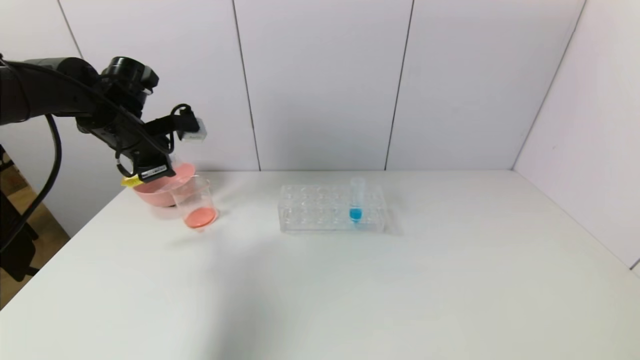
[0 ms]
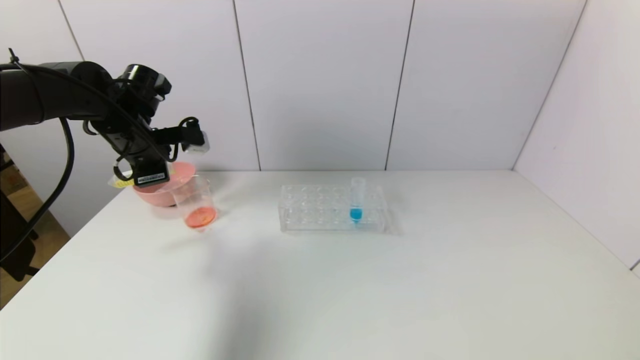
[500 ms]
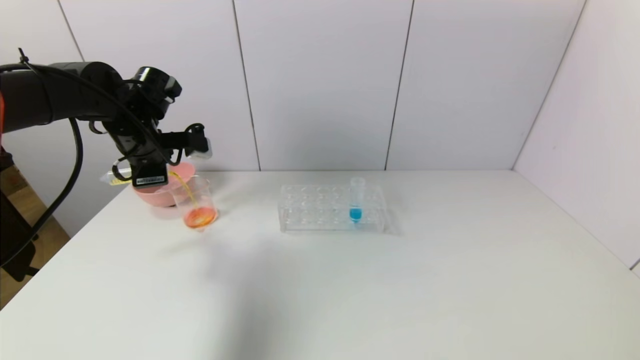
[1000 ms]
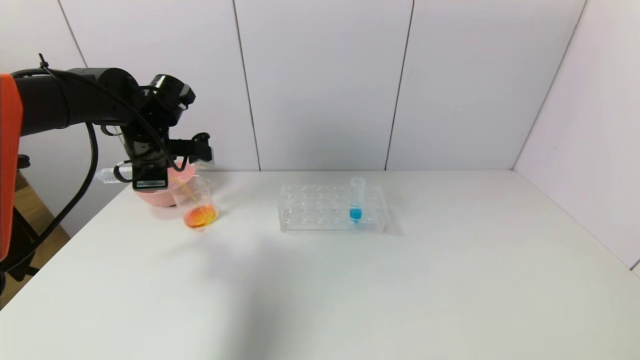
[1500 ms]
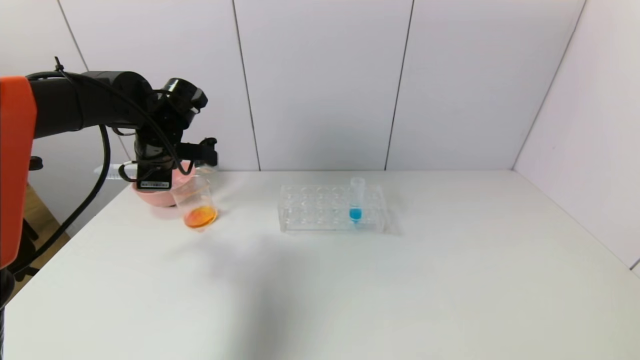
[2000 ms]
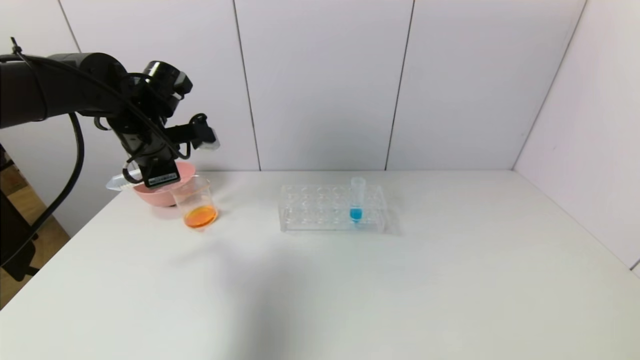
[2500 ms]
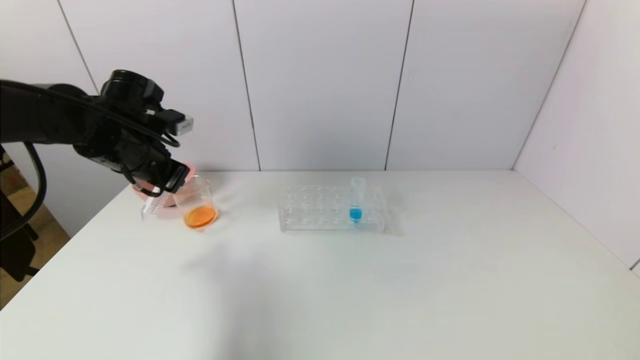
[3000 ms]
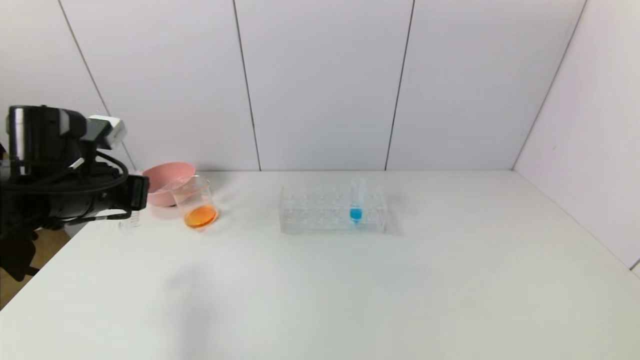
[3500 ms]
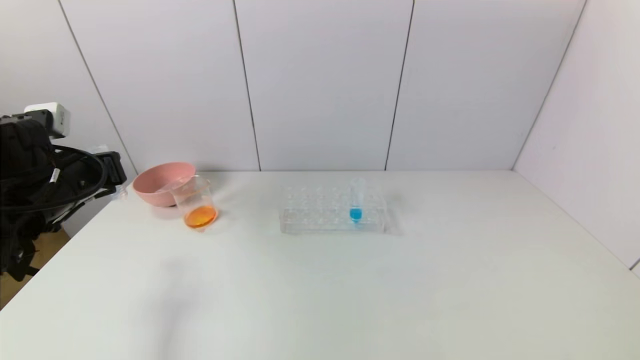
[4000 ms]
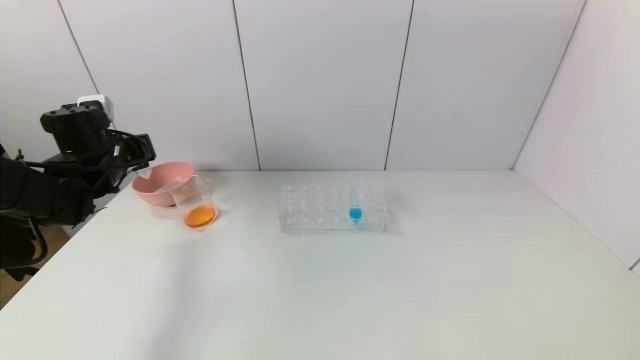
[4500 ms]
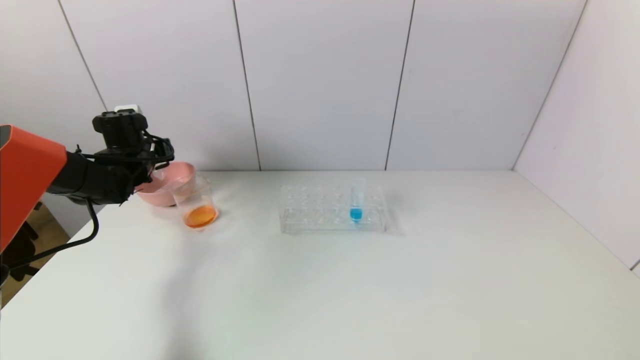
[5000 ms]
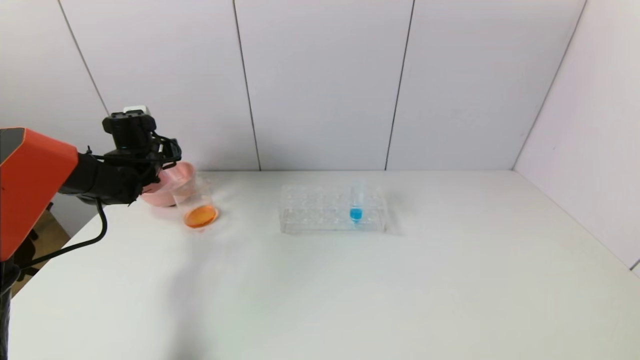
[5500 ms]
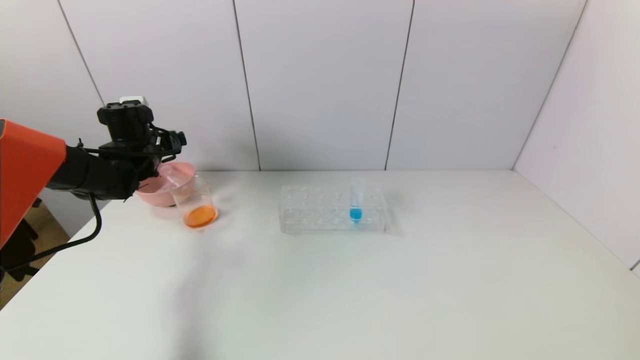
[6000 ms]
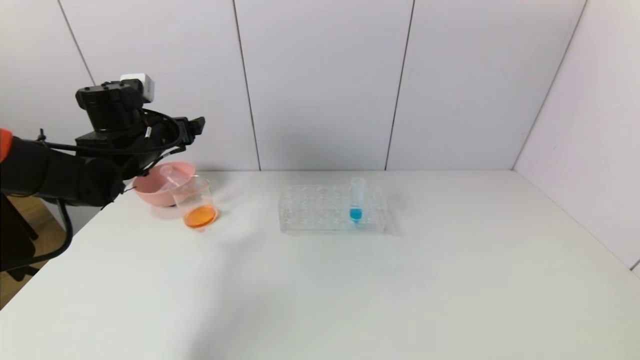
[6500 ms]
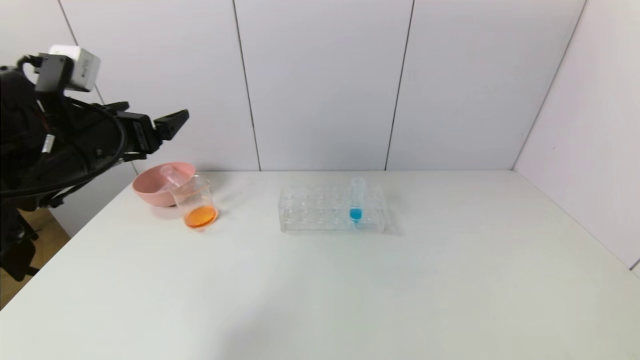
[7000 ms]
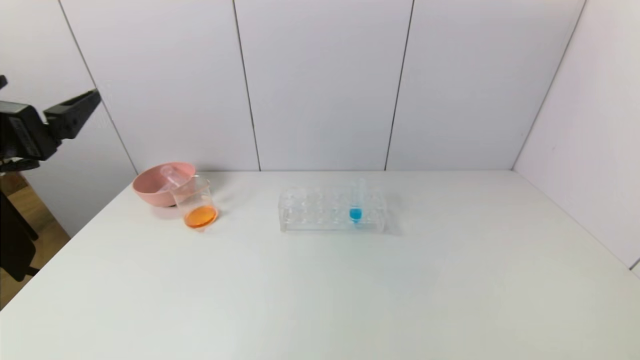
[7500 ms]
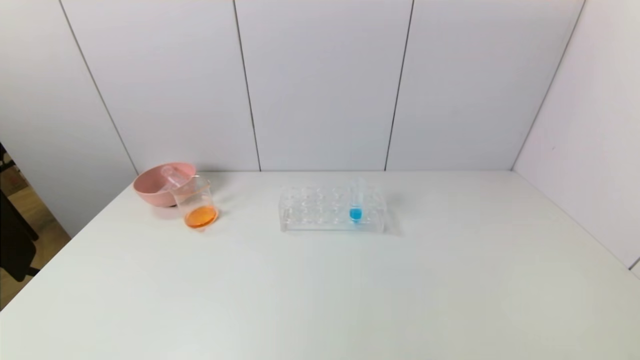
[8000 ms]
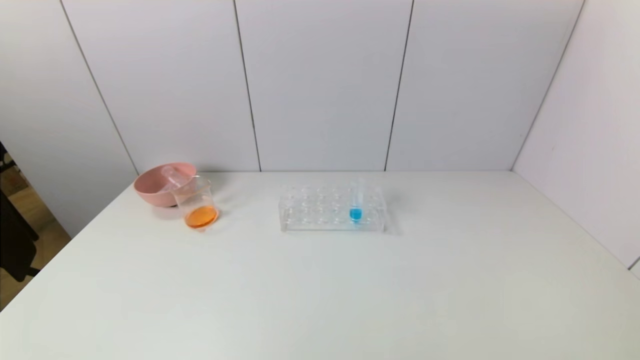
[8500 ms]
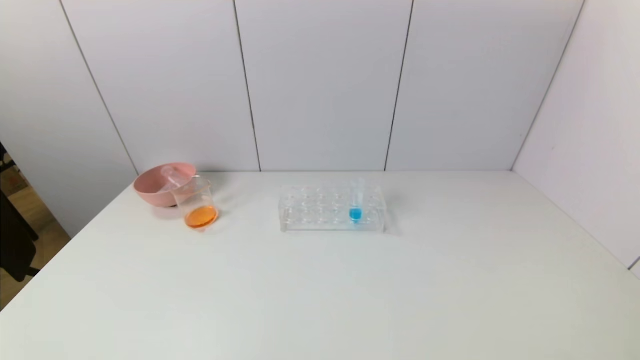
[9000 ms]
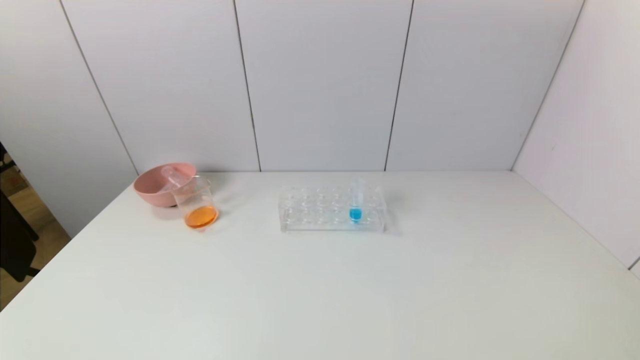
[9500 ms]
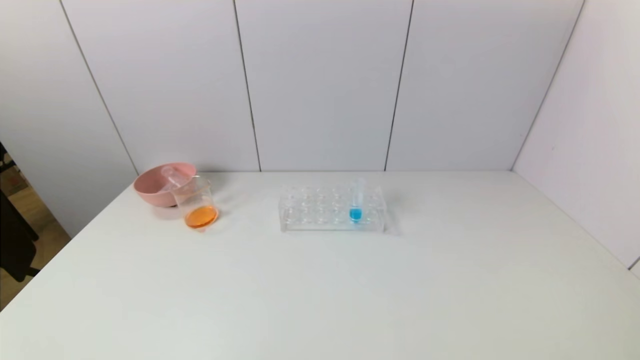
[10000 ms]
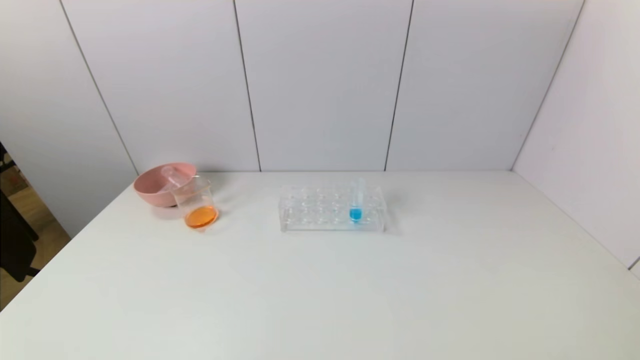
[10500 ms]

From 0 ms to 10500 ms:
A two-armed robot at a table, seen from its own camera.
Task of the whole recording: pick up the test tube with yellow pigment and the test tube with red pigment by grippers and pour them into the beaker.
Step, from 2000 ms to 5500 ms: Place the test tube into the pink bowl with the left gripper.
From 2000 ms to 4000 ms: The left gripper travels backward and to the left by approximately 15 cm.
From 4000 ms to 6500 ms: The left gripper moves forward and to the right, some 10 cm, and opens.
From 6500 ms to 8500 ms: The left gripper travels backward by some 40 cm.
